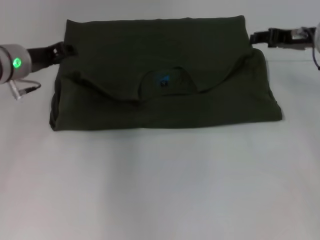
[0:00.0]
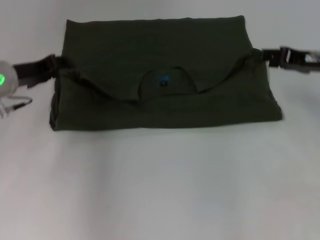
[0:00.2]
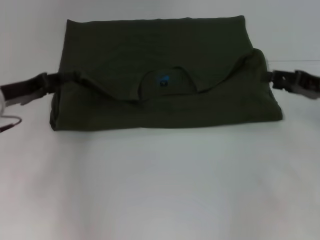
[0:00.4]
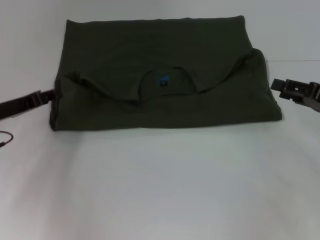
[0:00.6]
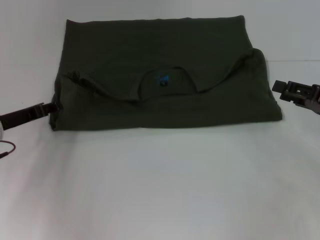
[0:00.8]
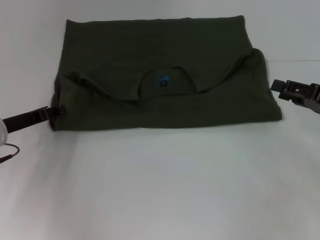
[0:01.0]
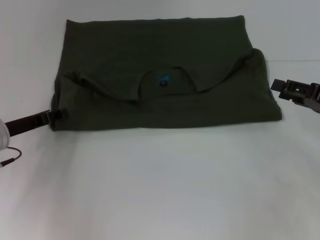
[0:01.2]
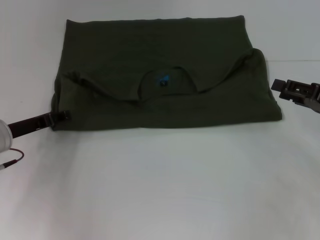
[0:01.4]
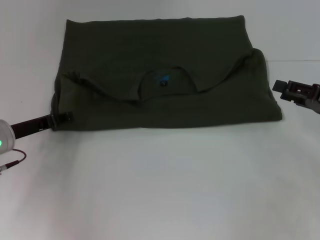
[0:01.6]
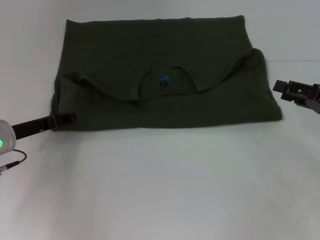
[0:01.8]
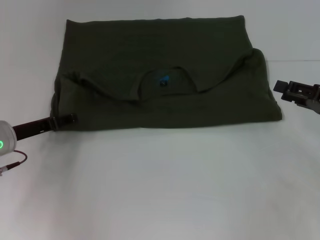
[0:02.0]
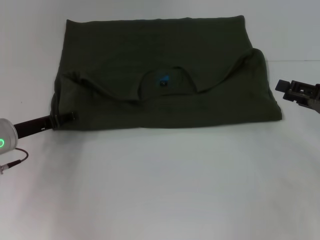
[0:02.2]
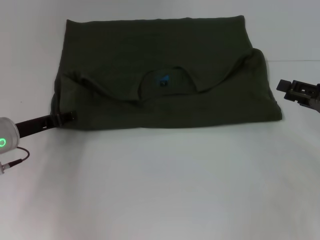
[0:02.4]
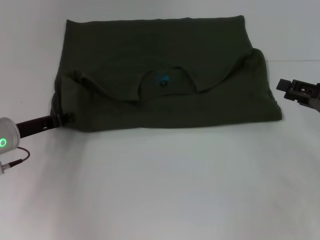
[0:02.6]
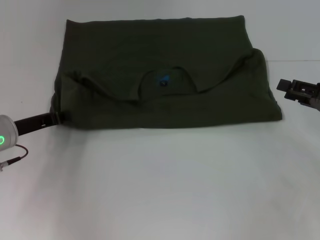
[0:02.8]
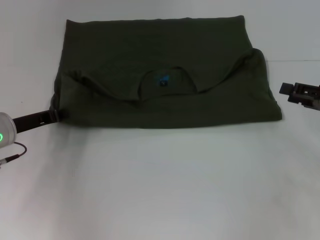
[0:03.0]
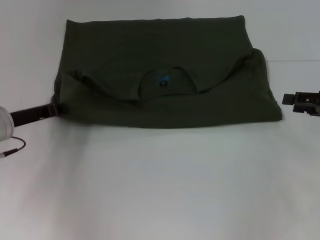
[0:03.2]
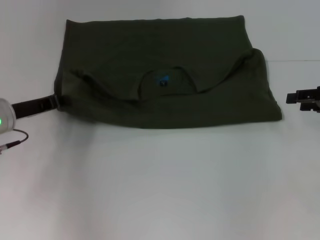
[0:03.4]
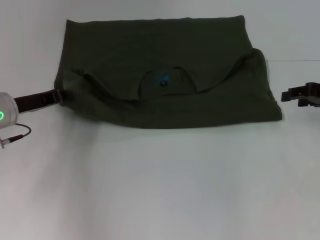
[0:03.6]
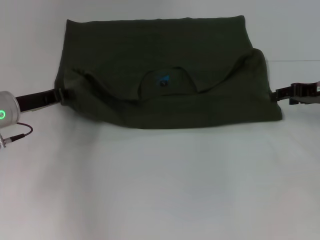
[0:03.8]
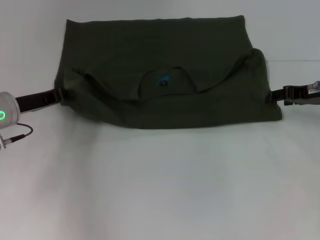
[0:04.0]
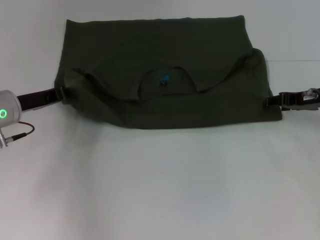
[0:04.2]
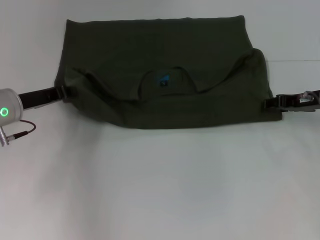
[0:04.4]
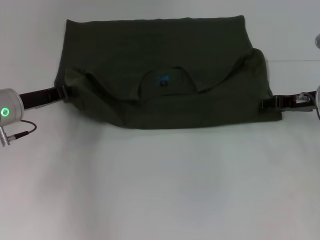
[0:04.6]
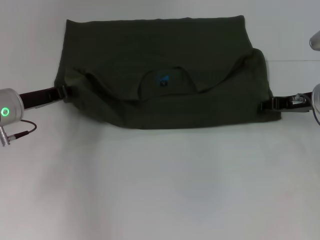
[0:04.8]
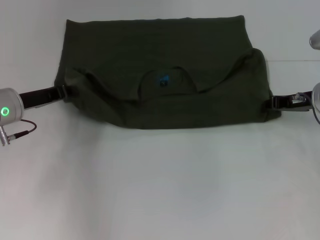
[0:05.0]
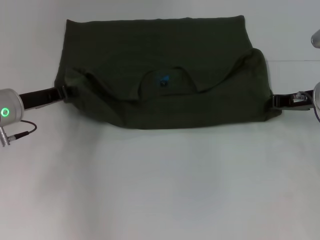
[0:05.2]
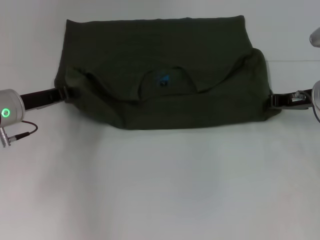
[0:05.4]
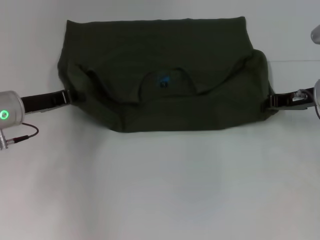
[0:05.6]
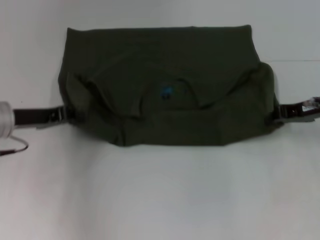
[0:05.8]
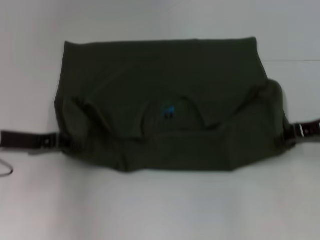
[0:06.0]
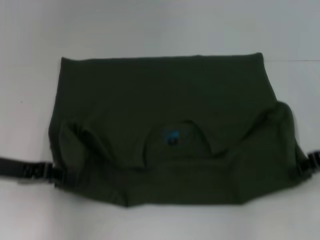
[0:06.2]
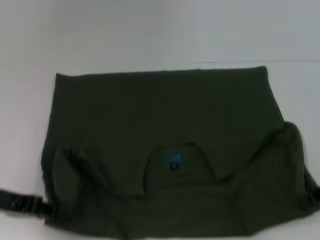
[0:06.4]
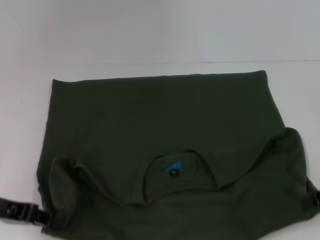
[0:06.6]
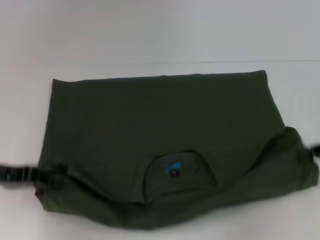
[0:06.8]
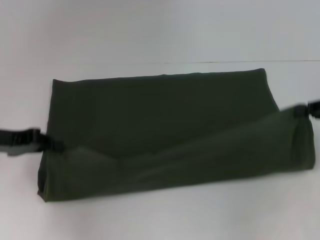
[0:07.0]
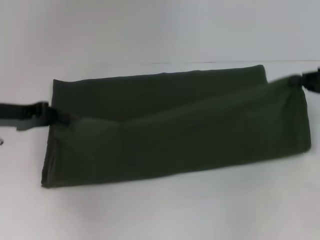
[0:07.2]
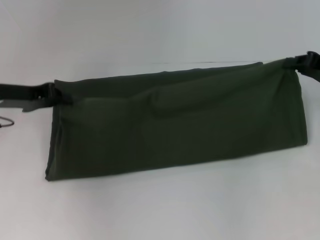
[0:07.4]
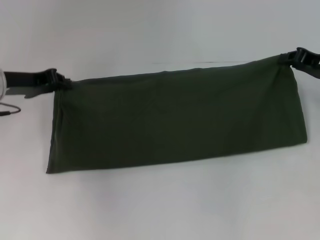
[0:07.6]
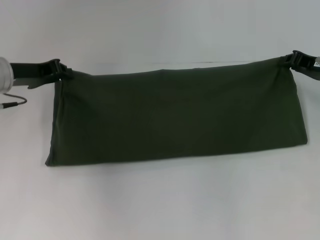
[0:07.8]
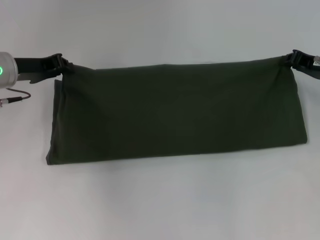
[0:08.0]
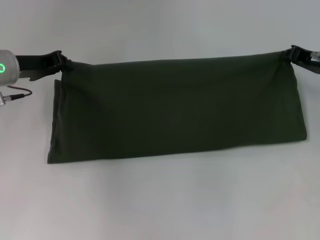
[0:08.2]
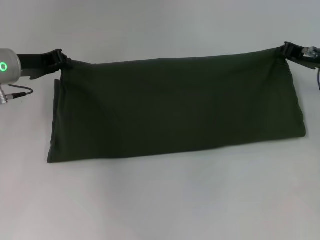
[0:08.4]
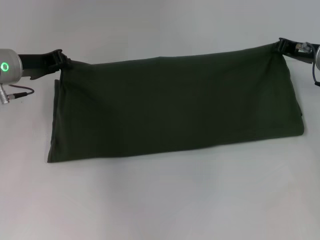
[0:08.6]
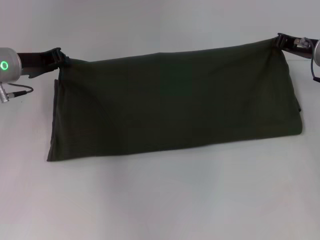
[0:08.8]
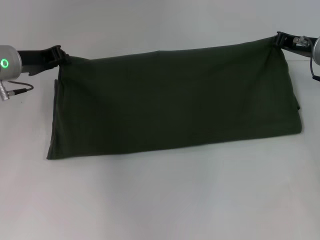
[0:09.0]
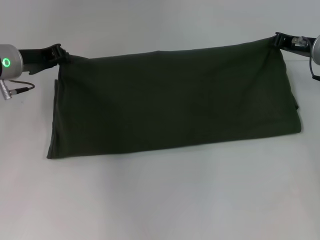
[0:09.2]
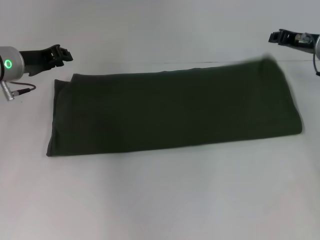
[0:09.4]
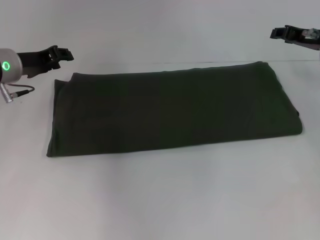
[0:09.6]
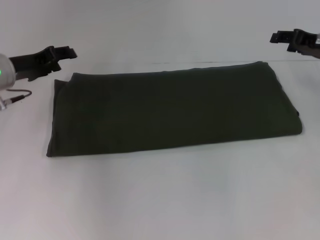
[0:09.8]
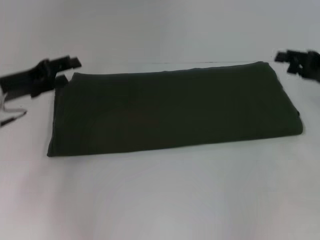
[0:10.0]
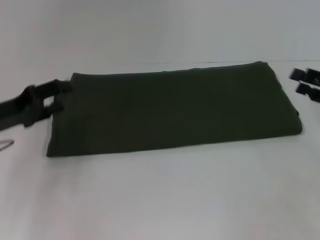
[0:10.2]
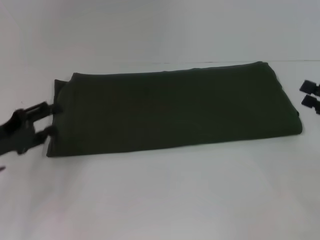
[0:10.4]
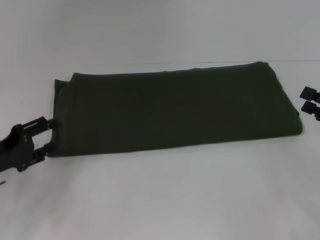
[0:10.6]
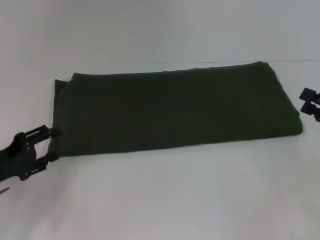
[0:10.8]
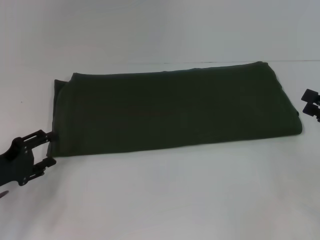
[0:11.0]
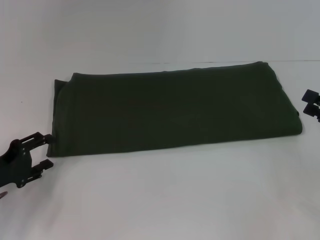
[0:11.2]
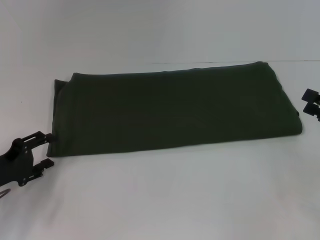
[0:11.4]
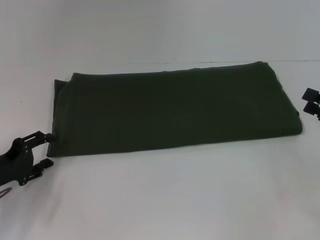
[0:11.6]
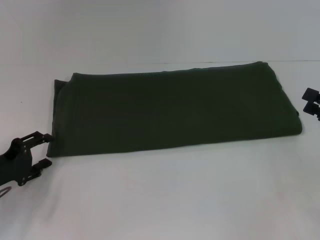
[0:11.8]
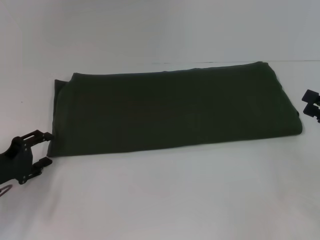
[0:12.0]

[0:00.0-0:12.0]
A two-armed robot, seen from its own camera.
Step, 0:00.2 to 0:06.4: Pull the clothes with your left hand.
Step, 0:00.2 to 0:06.4: Pull the clothes with your right hand.
Step, 0:06.6 to 0:09.6: Fold the clothes with your right hand.
0:00.0 to 0:01.6: The right gripper moves backward, to the right and downward, some 15 cm; the left gripper heads downward and backward, covering roughly 10 cm.
0:01.6 to 0:03.0: The left gripper closes.
0:03.0 to 0:04.4: The right gripper travels forward and to the left by some 10 cm.
0:04.4 to 0:06.0: The right gripper shifts about 5 cm backward, and closes up; the left gripper changes place by roughly 5 cm.
0:06.0 to 0:07.6: The left gripper heads forward, covering about 5 cm.
0:07.6 to 0:09.0: The right gripper ends up roughly 5 cm from where it was.
0:09.0 to 0:10.4: The left gripper shifts roughly 15 cm backward and downward, and opens, while the right gripper goes some 20 cm backward and to the right, and opens.
0:10.4 to 0:12.0: The left gripper ends up some 5 cm from where it was.

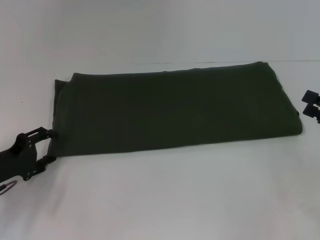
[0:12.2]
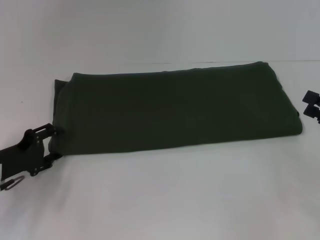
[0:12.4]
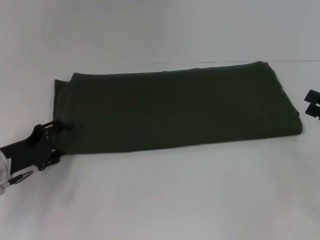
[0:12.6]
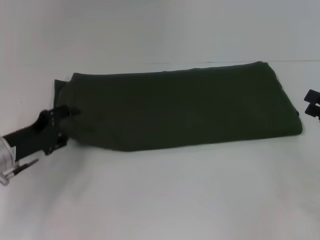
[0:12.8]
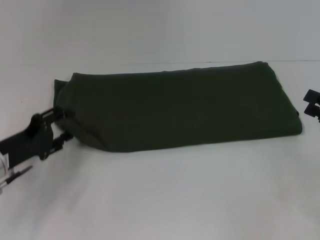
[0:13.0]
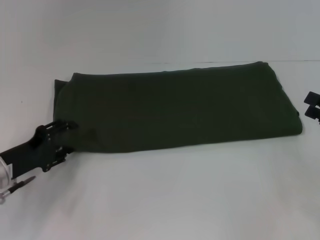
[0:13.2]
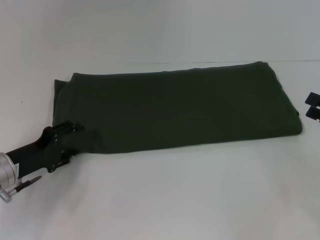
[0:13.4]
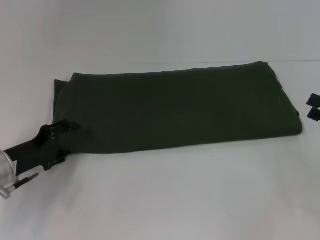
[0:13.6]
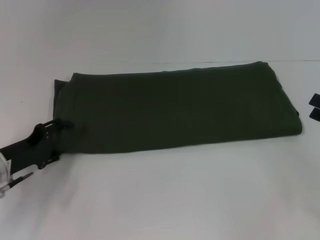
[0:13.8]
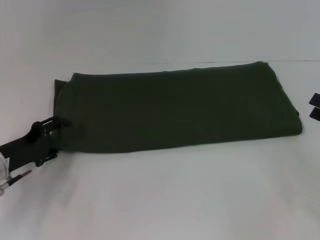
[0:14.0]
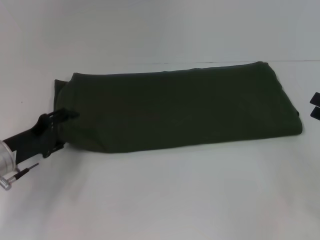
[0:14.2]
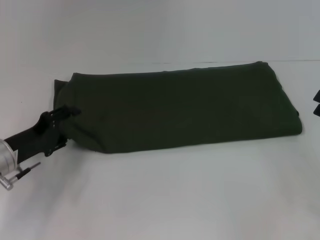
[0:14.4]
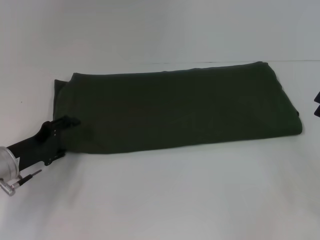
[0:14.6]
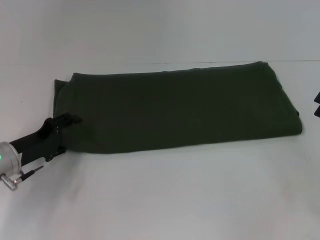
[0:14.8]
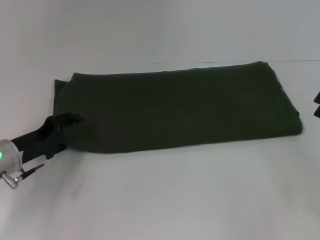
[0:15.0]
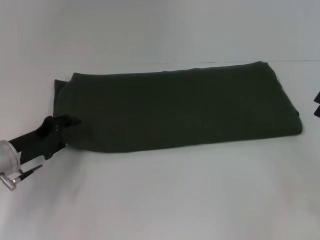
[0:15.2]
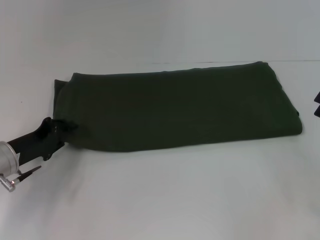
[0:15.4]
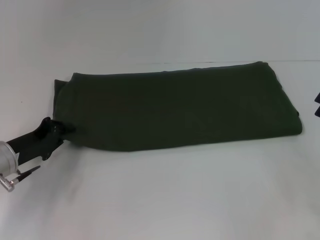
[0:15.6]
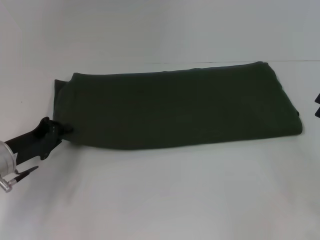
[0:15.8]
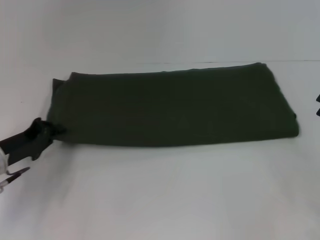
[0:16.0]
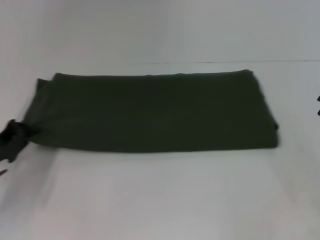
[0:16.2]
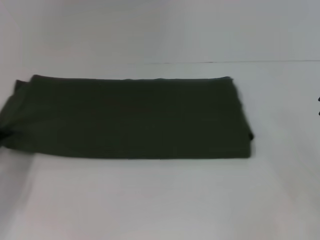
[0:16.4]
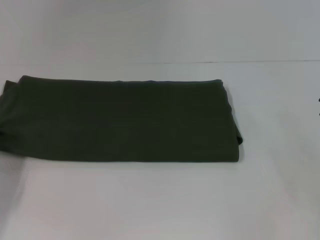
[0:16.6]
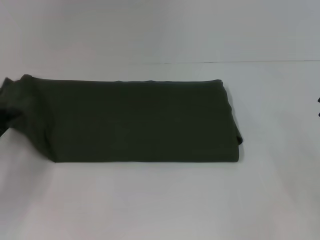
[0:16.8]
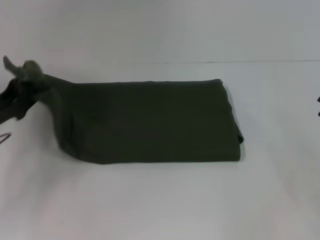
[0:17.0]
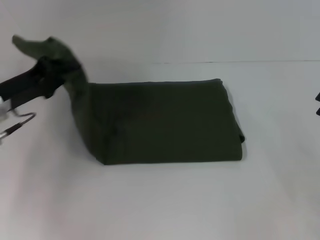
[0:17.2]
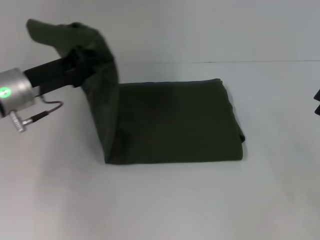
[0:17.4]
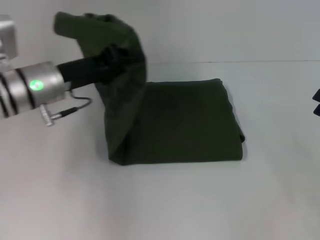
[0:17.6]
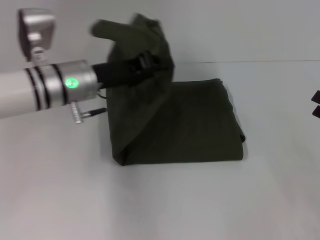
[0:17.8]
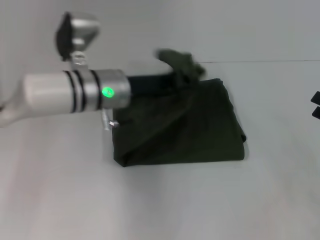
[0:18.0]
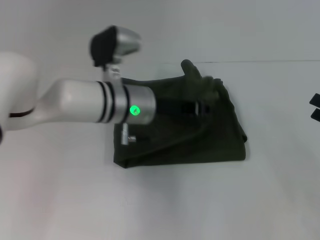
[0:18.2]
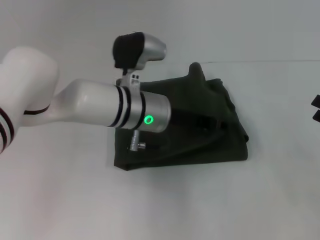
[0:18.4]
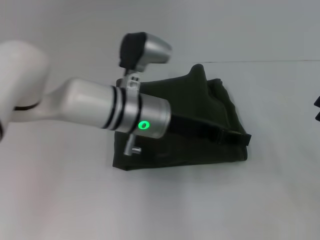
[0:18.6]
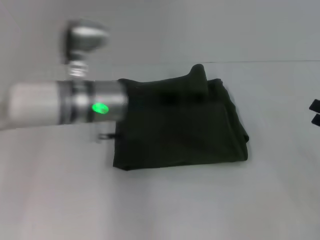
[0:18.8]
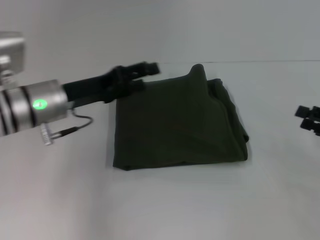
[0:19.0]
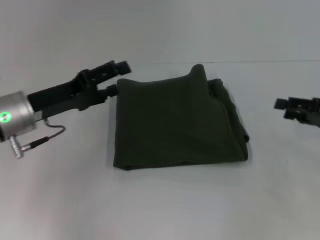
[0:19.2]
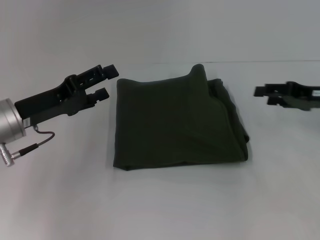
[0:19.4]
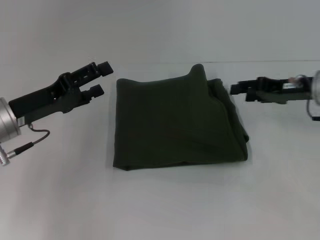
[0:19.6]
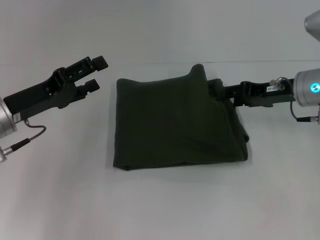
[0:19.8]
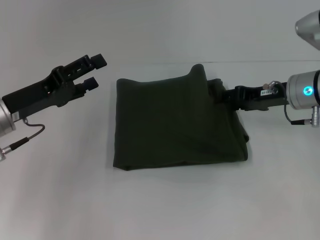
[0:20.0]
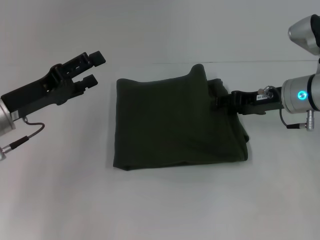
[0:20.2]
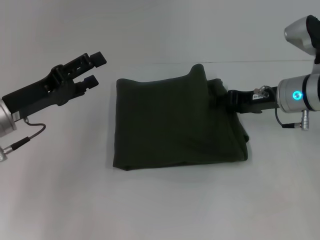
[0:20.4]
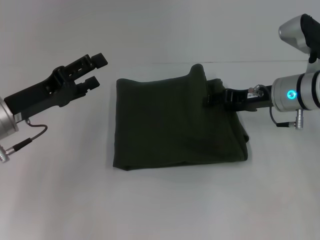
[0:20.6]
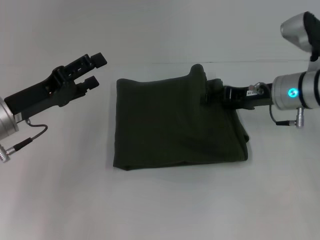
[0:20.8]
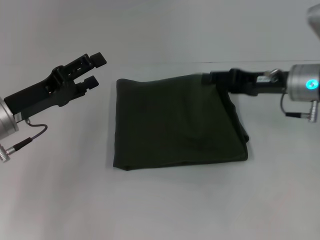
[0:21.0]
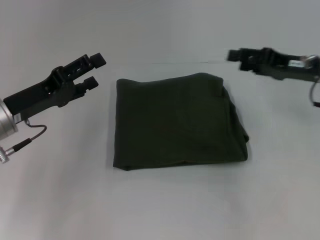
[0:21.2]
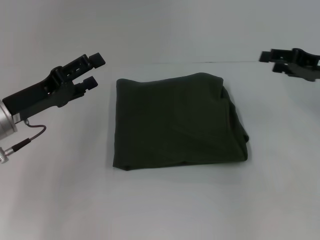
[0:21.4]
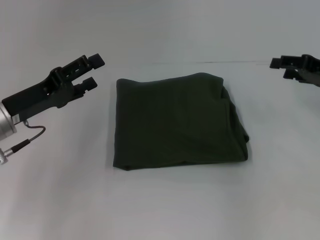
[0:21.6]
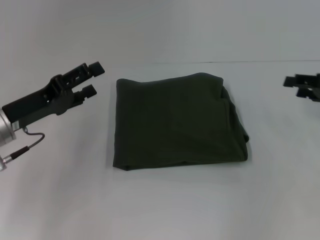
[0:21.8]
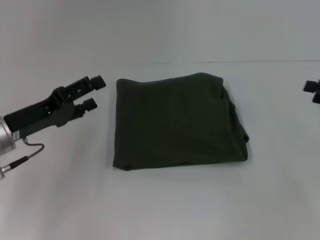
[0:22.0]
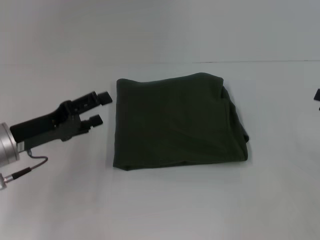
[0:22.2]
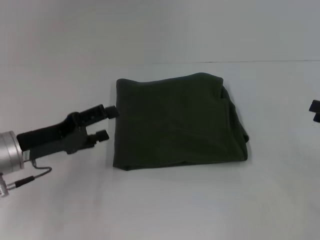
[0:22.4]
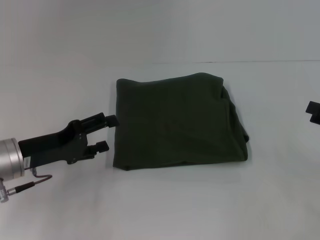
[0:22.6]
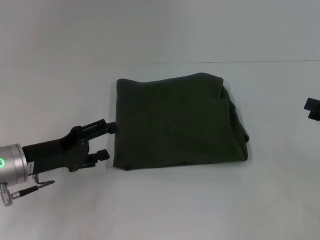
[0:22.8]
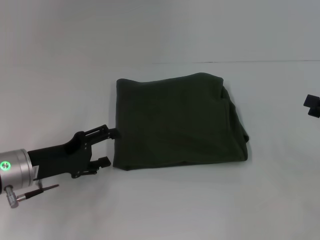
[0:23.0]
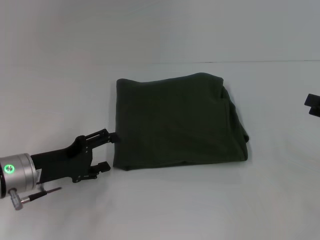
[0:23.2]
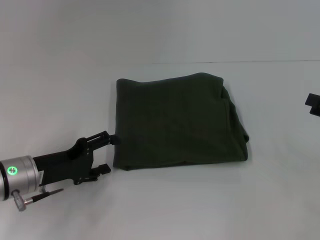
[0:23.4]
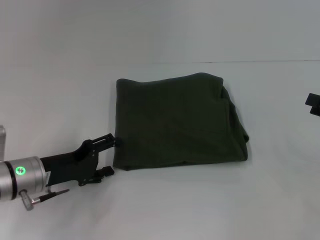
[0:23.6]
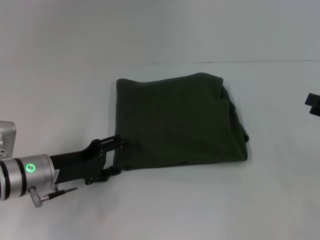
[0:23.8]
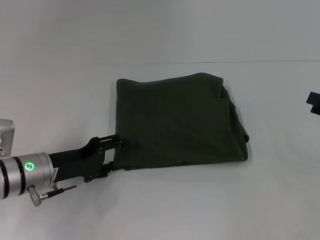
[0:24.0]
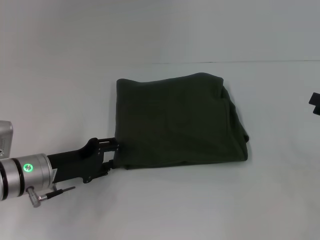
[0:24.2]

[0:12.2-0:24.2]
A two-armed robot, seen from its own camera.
Step, 0:12.2 to 0:18.6: Fold the clothes with your left hand.
0:12.2 to 0:15.2: The grippers make only small movements.
0:15.2 to 0:16.6: The left gripper moves to the left, roughly 10 cm, and closes.
0:16.6 to 0:18.2: The left gripper is displaced to the right by roughly 30 cm.
0:18.2 to 0:19.8: The right gripper is displaced forward and to the left by about 20 cm. Meanwhile the left gripper shifts about 20 cm to the left, and opens up.
0:19.8 to 0:21.2: The grippers make only small movements.
0:21.2 to 0:22.6: The right gripper is displaced to the right and backward by about 15 cm.
0:22.6 to 0:24.2: The left gripper changes place by approximately 5 cm.
